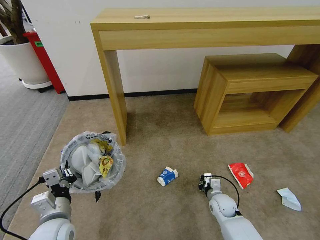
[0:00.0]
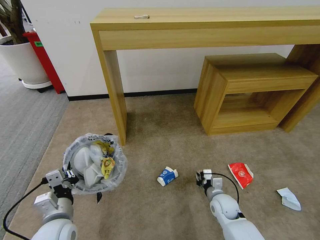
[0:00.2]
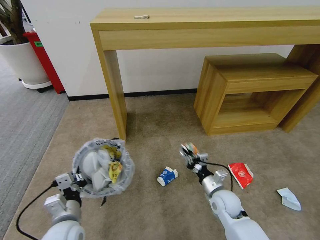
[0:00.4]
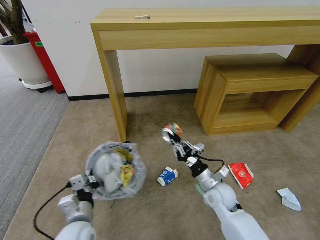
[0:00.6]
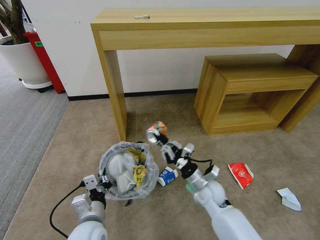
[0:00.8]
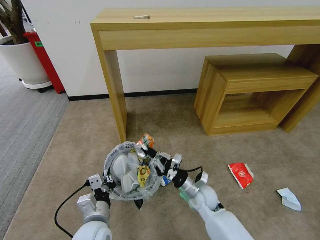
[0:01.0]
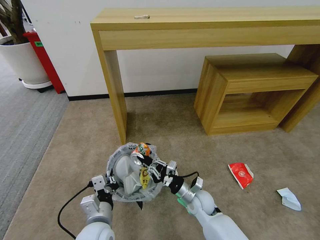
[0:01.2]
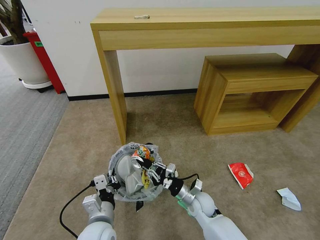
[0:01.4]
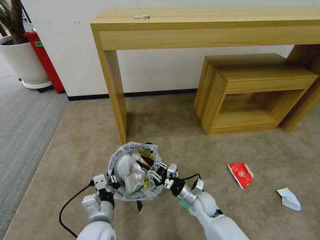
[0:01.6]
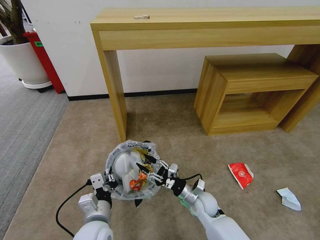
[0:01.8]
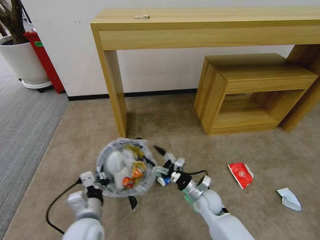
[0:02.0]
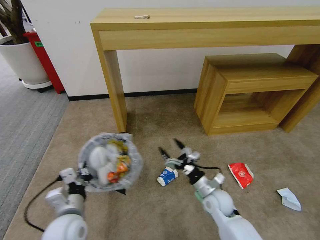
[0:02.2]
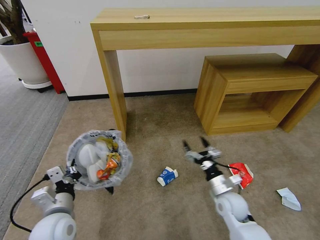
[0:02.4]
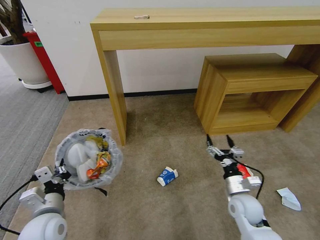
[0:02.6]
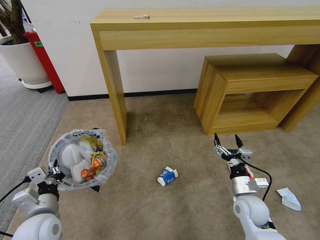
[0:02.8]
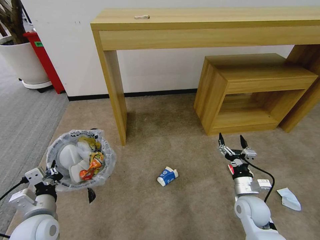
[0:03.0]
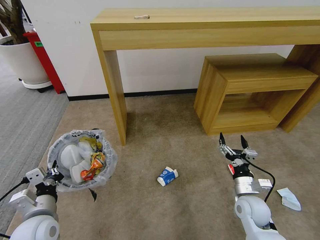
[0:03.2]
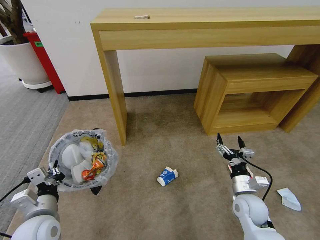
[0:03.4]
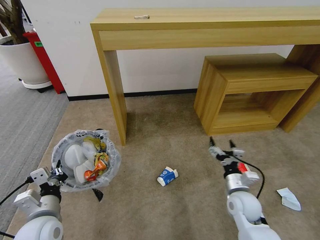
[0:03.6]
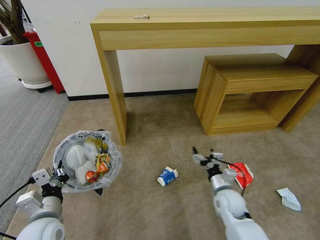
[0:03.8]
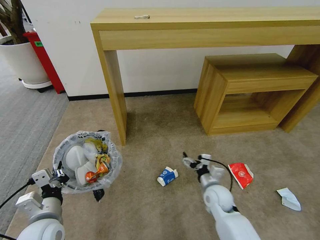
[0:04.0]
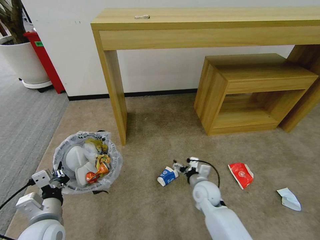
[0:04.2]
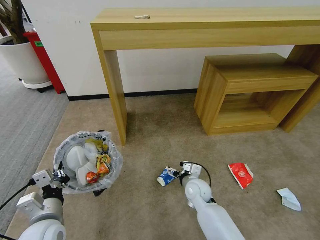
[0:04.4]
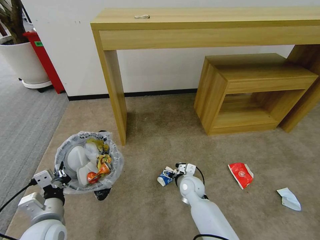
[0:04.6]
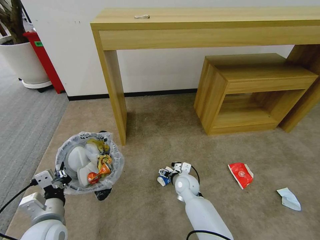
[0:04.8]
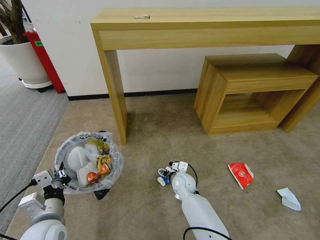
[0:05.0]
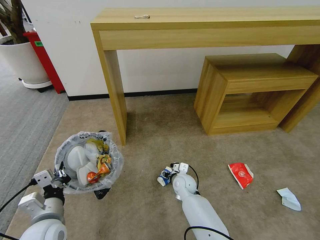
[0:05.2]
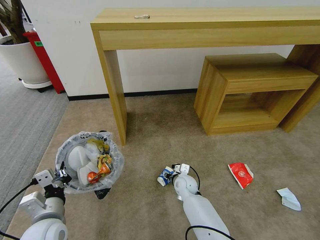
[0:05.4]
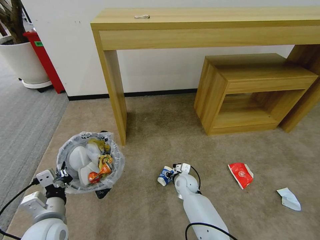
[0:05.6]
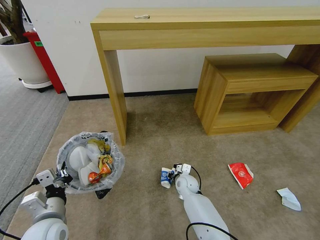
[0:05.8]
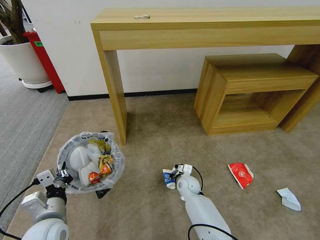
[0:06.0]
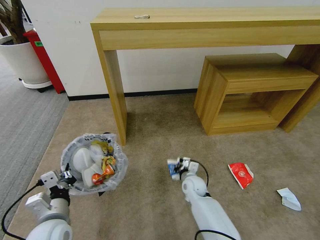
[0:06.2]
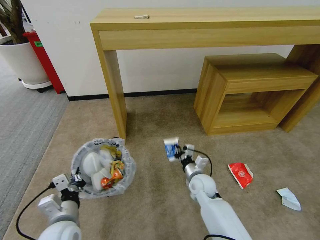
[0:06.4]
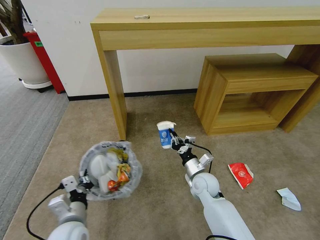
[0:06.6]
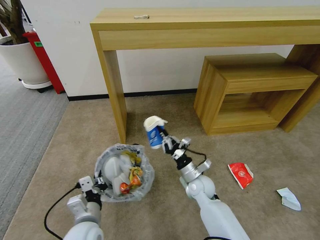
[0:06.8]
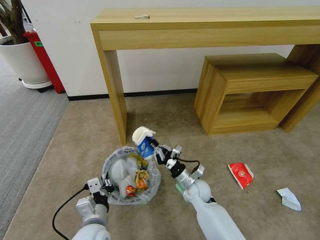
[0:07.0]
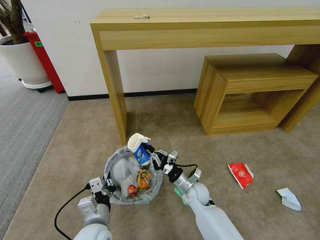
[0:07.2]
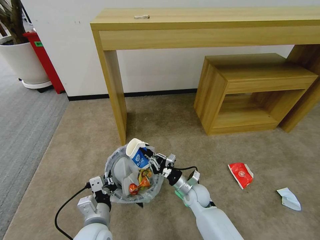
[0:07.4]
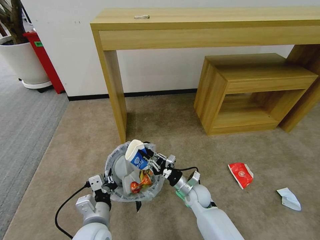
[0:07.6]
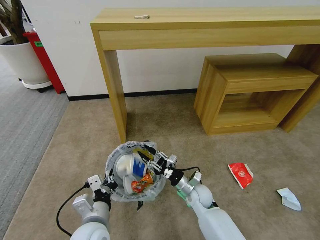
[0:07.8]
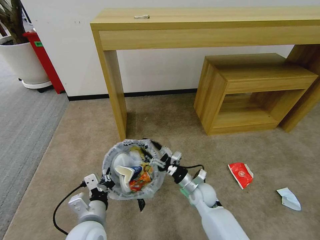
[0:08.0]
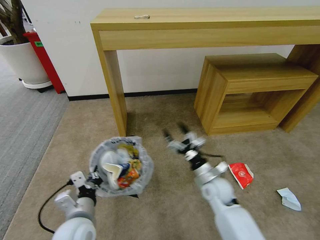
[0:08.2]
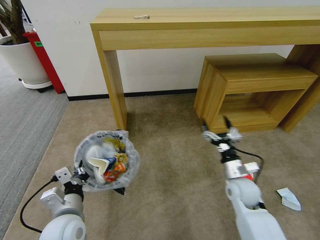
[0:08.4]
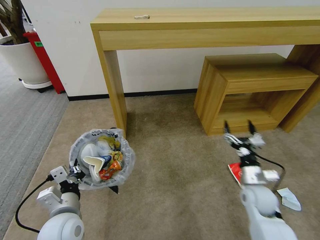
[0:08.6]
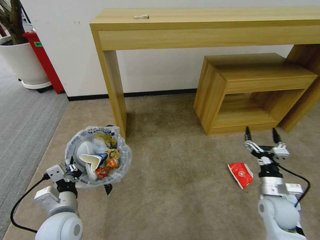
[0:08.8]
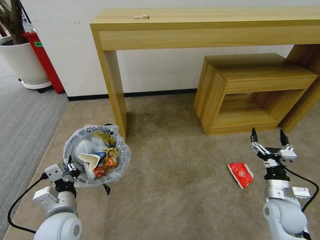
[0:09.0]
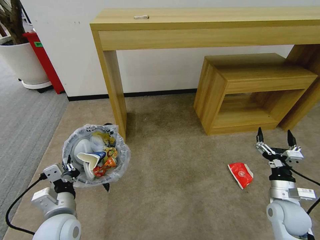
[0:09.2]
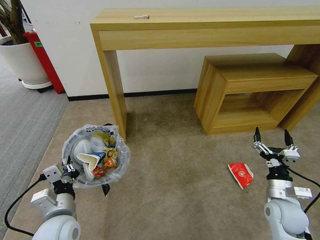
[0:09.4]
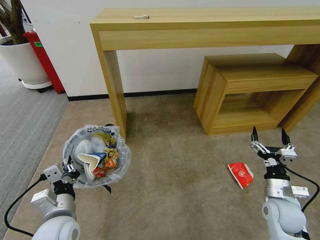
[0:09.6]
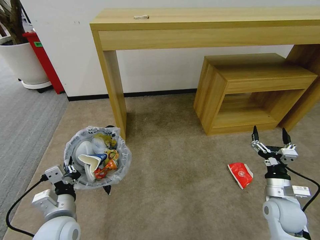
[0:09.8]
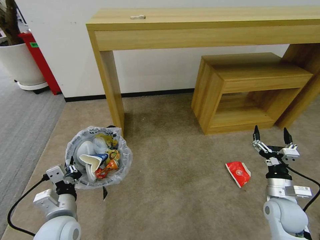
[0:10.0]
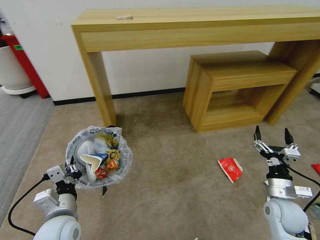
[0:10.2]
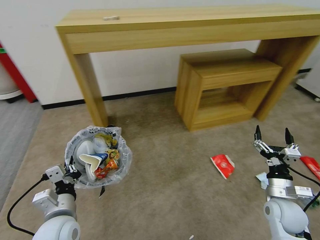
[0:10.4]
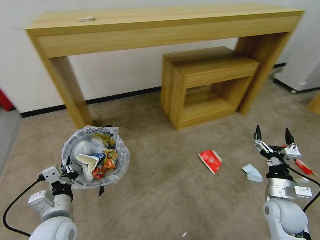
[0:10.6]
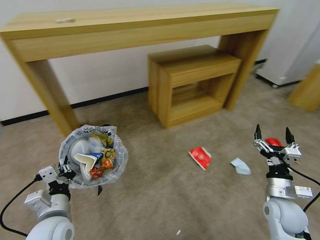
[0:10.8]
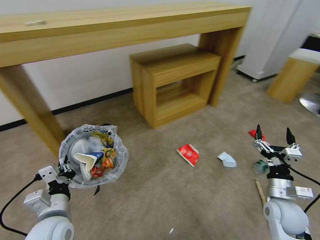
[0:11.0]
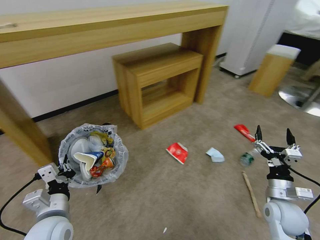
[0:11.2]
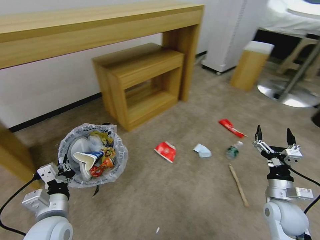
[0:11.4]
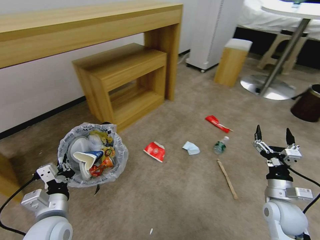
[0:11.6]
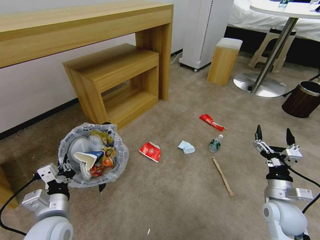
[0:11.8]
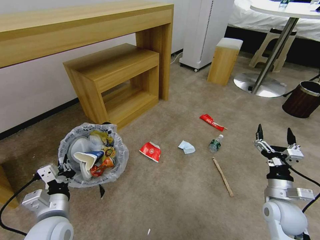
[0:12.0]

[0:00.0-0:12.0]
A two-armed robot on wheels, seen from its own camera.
Task of the whole recording: Pick up the trash bin and place the garbage on the floor into it.
0:00.0 to 0:01.6: The right gripper is displaced to the left and upward by approximately 10 cm; the left gripper heads to the right, covering some 10 cm.
0:01.6 to 0:03.0: The right gripper travels to the right by about 15 cm, and opens up; the left gripper is displaced to the left by roughly 15 cm.
0:03.0 to 0:04.4: The right gripper heads to the left and forward, covering roughly 15 cm.
0:04.4 to 0:06.0: The right gripper moves downward and forward, approximately 10 cm, and closes up.
0:06.0 to 0:07.6: The left gripper heads to the right, covering approximately 10 cm, while the right gripper goes roughly 5 cm backward.
0:07.6 to 0:09.0: The right gripper is displaced to the right by some 25 cm, and opens its fingers. The left gripper is displaced to the left by about 10 cm.

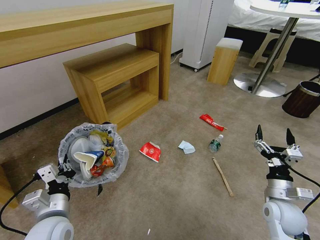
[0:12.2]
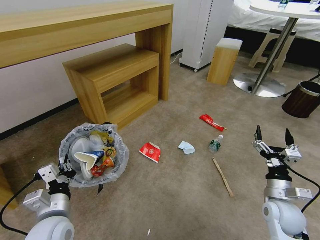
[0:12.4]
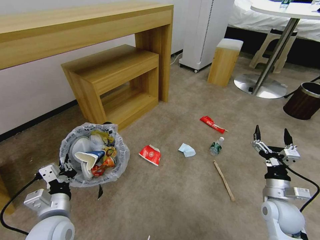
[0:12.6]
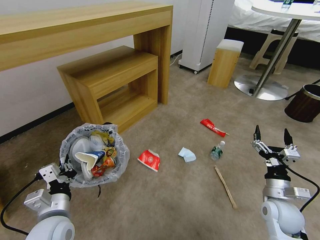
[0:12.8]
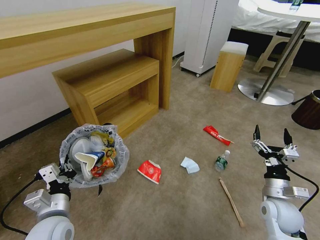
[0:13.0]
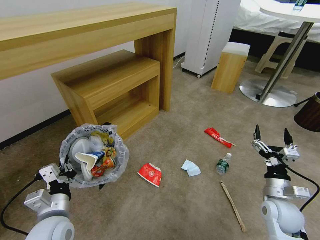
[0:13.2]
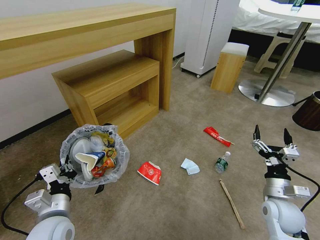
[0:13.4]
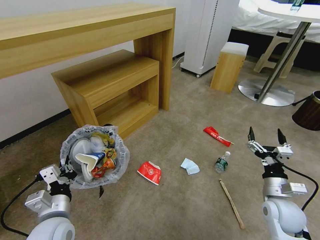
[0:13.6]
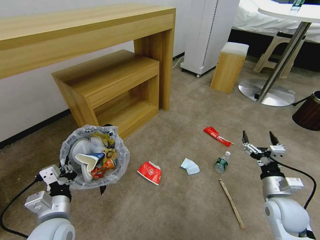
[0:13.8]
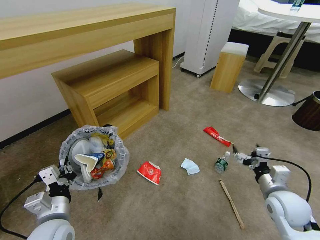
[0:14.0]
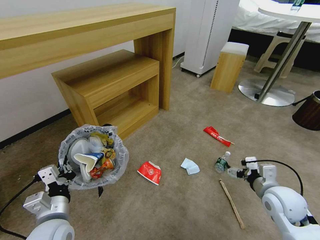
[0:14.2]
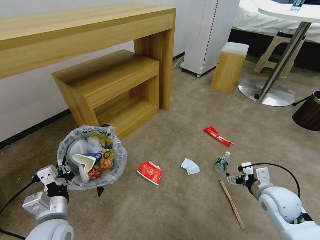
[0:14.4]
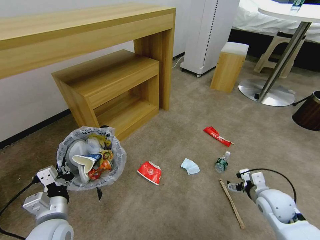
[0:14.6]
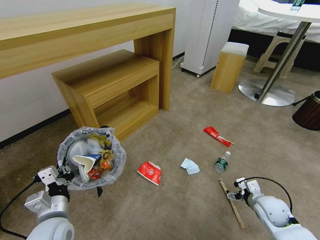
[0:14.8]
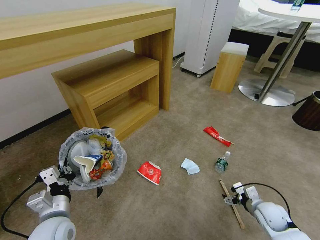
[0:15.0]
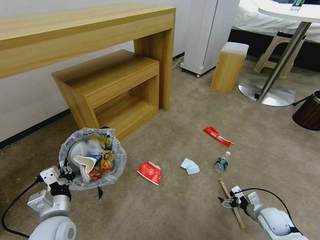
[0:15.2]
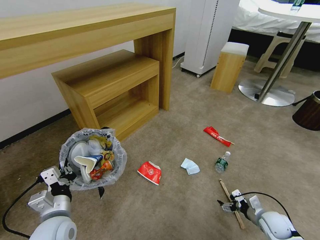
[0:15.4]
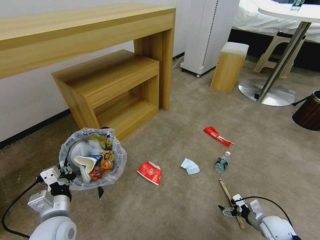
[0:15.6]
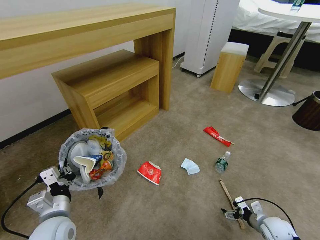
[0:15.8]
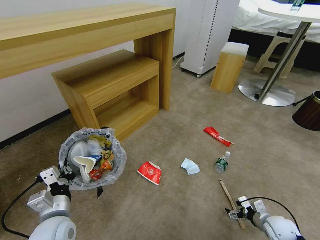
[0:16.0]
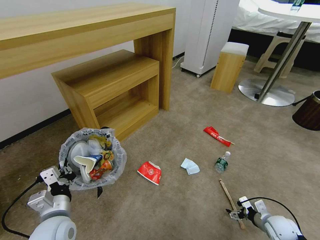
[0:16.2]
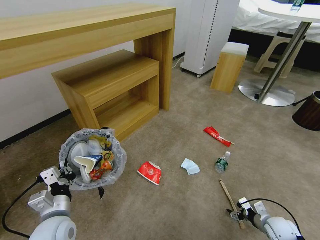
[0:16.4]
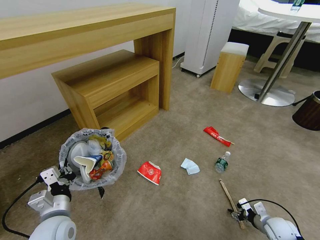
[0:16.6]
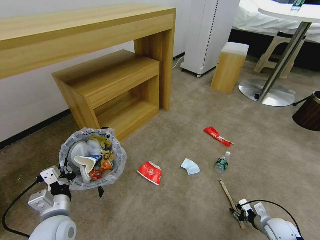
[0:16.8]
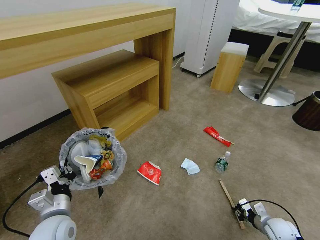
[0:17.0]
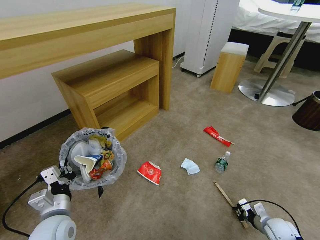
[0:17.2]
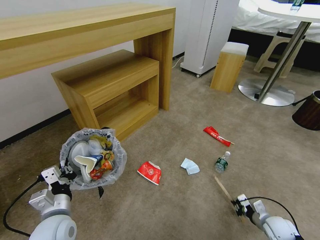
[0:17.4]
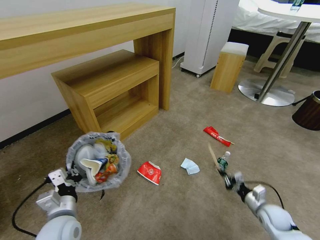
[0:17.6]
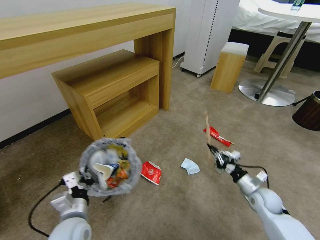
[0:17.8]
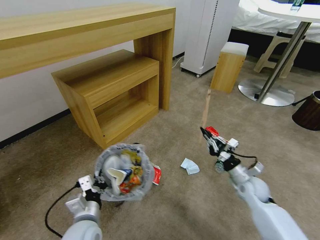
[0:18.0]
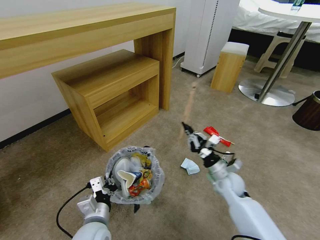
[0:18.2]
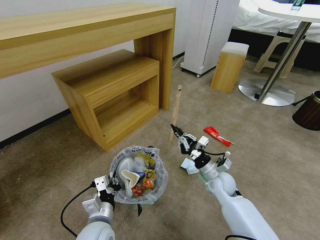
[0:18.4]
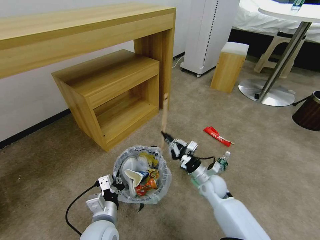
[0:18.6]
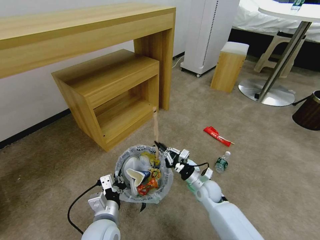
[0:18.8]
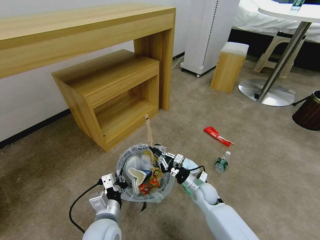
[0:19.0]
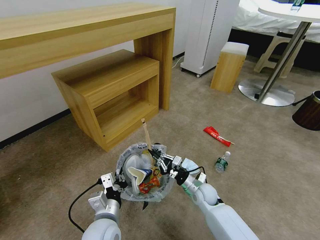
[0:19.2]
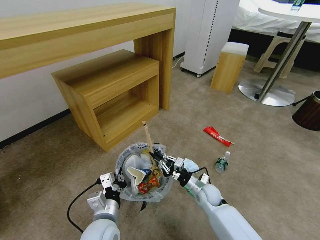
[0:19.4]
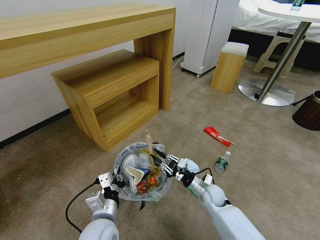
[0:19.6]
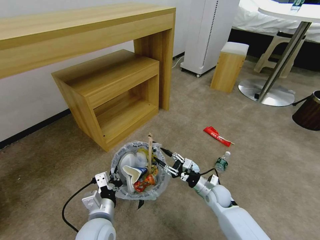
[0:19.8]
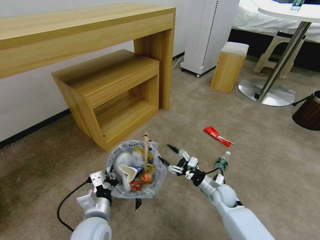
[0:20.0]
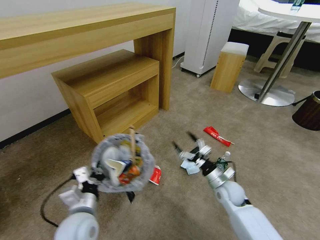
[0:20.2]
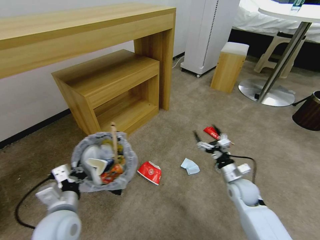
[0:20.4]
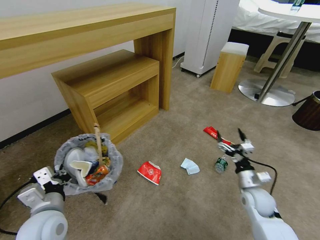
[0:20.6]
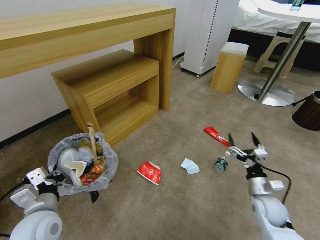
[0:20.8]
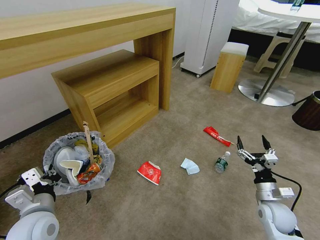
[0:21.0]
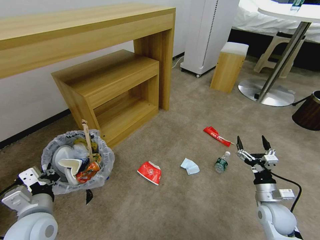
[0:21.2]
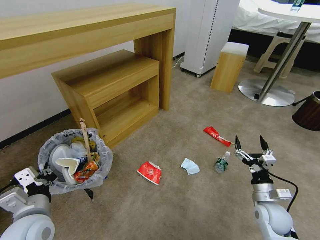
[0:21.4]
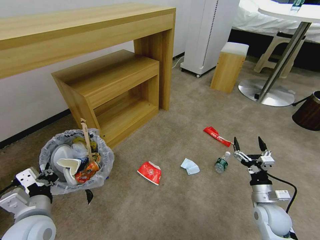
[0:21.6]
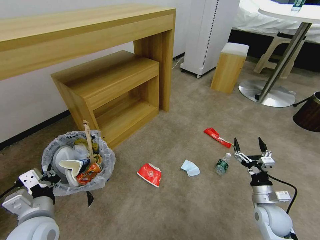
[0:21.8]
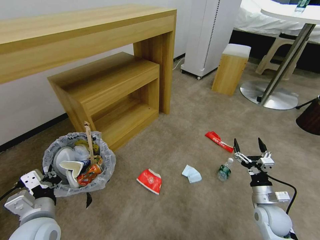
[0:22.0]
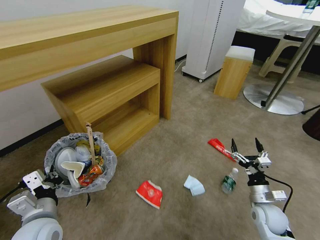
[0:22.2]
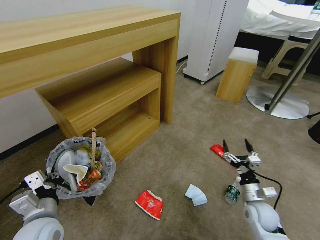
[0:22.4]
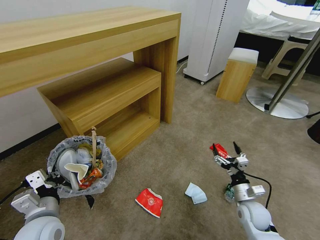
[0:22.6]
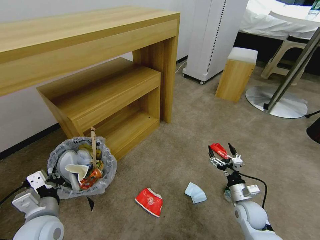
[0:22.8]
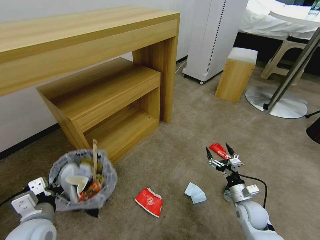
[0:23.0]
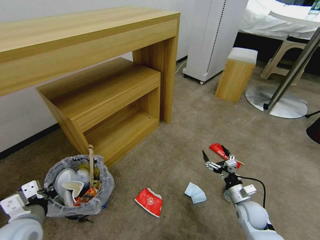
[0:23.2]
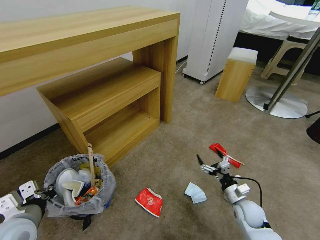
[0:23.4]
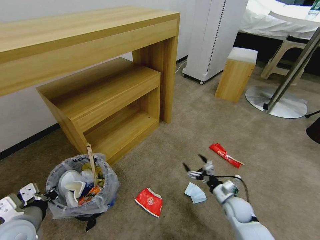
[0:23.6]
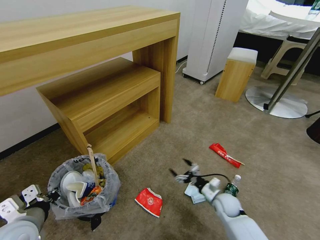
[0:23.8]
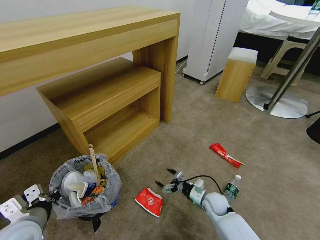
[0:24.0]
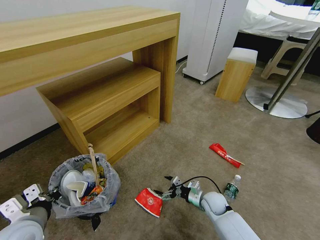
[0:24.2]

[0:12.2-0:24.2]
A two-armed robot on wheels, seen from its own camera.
Task of the whole recording: Pick up the trash bin and place the garbage on the floor into it.
0:13.8 to 0:15.2: The right gripper heads downward, covering about 15 cm.
0:15.2 to 0:16.6: The right gripper changes place by about 5 cm, and closes.
0:16.6 to 0:18.2: The right gripper goes approximately 25 cm to the left, forward and upward, and closes up. The left gripper moves to the right, some 10 cm.
0:18.2 to 0:19.8: The right gripper heads downward, covering approximately 5 cm, and opens.
0:19.8 to 0:21.2: The left gripper goes roughly 15 cm to the left and upward; the right gripper goes about 20 cm to the right, backward and upward, and opens up.
0:21.2 to 0:22.6: The right gripper ends up some 5 cm from where it was.
0:22.6 to 0:24.2: The right gripper heads to the left, downward and forward, covering some 15 cm.
